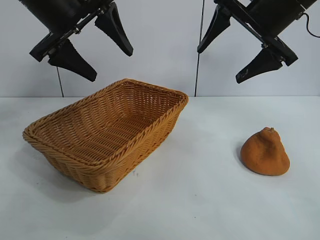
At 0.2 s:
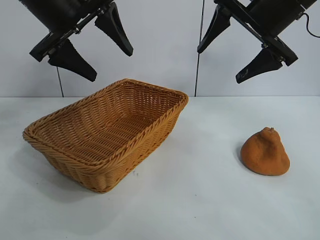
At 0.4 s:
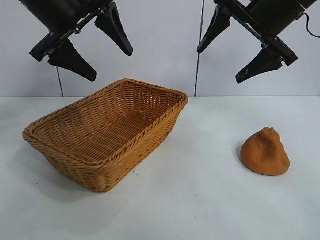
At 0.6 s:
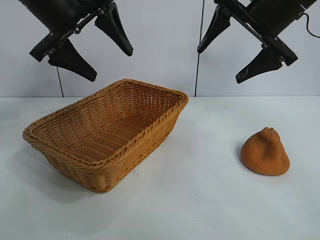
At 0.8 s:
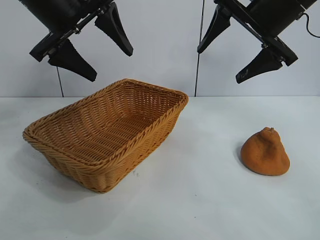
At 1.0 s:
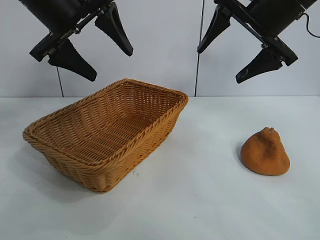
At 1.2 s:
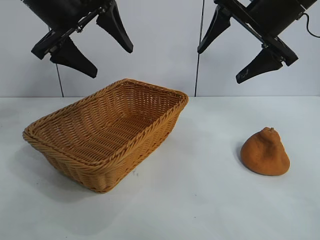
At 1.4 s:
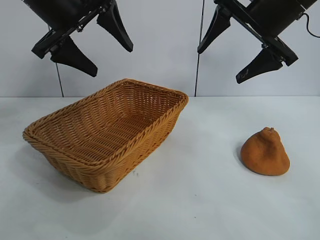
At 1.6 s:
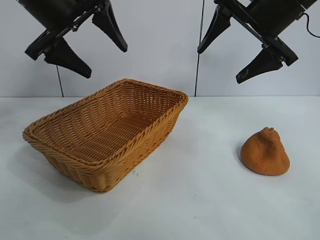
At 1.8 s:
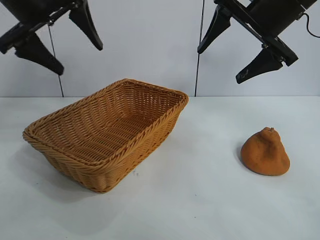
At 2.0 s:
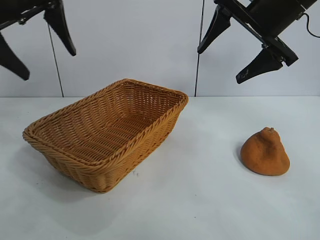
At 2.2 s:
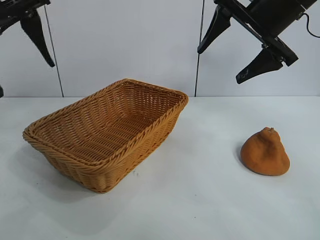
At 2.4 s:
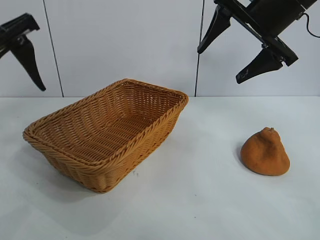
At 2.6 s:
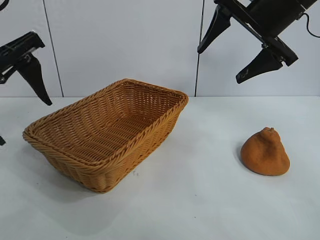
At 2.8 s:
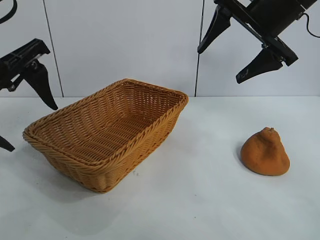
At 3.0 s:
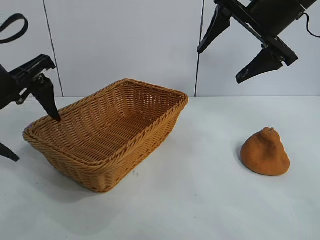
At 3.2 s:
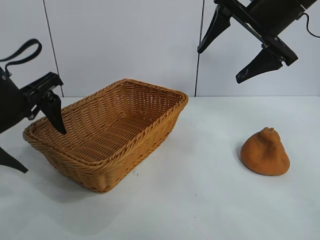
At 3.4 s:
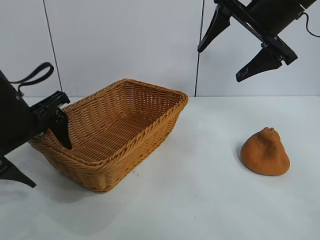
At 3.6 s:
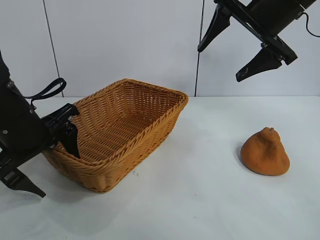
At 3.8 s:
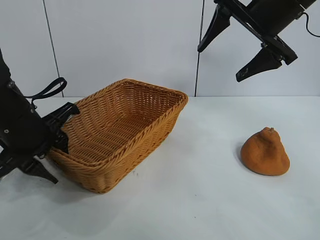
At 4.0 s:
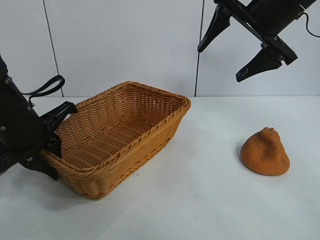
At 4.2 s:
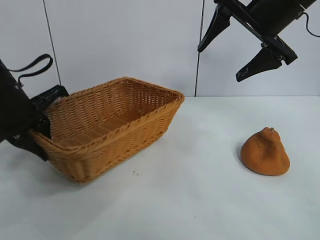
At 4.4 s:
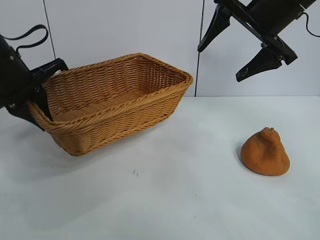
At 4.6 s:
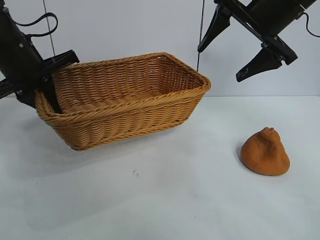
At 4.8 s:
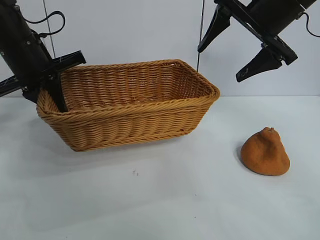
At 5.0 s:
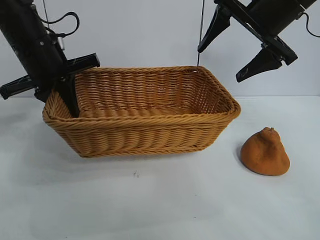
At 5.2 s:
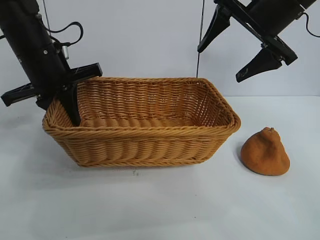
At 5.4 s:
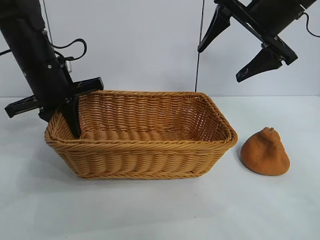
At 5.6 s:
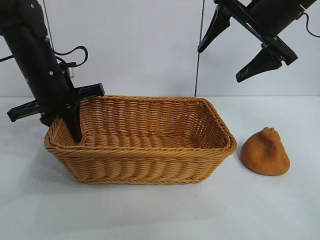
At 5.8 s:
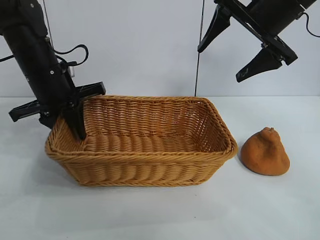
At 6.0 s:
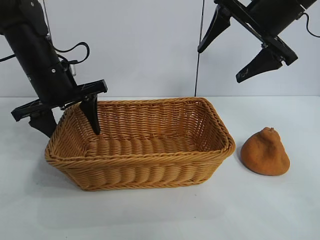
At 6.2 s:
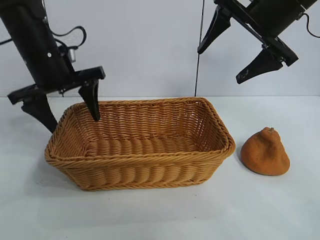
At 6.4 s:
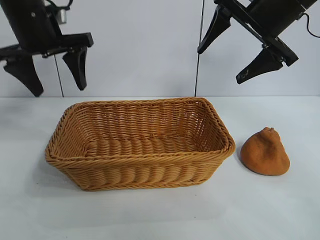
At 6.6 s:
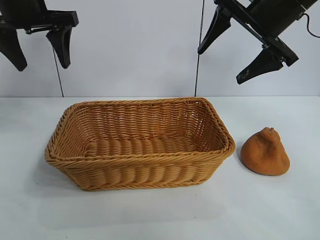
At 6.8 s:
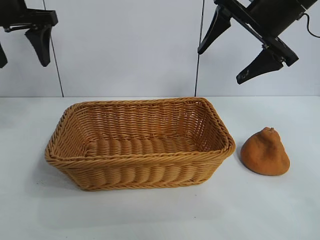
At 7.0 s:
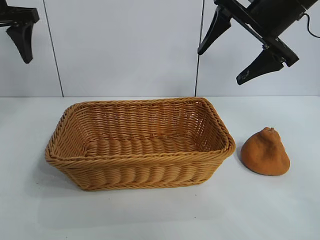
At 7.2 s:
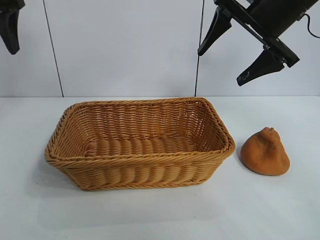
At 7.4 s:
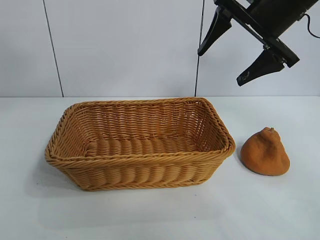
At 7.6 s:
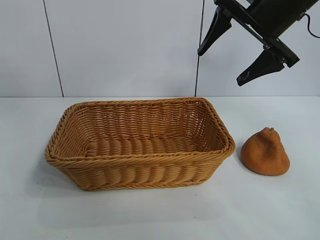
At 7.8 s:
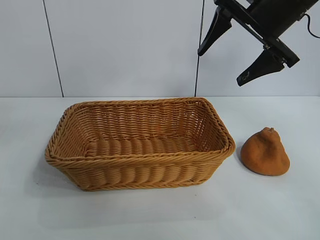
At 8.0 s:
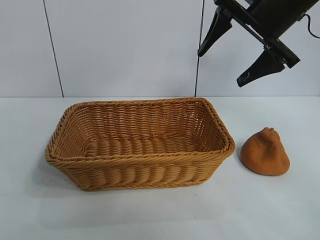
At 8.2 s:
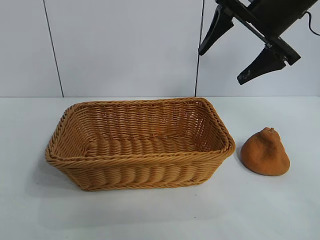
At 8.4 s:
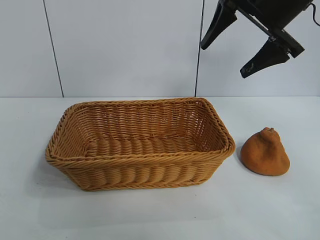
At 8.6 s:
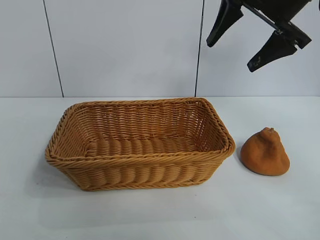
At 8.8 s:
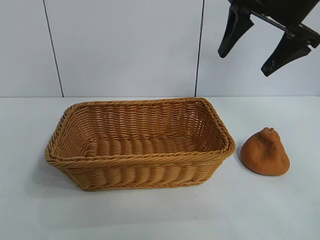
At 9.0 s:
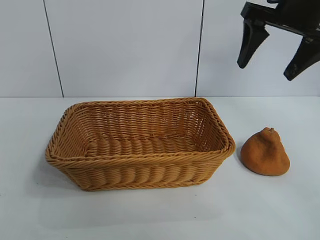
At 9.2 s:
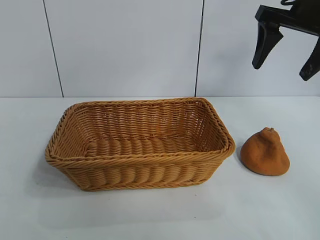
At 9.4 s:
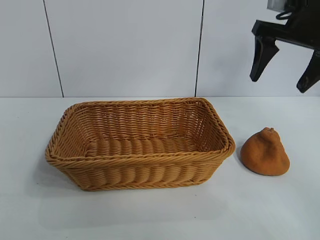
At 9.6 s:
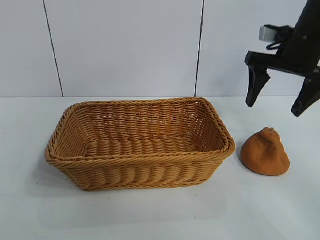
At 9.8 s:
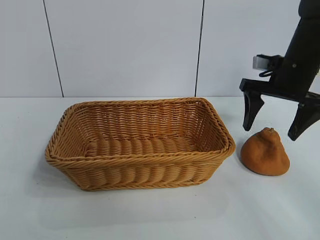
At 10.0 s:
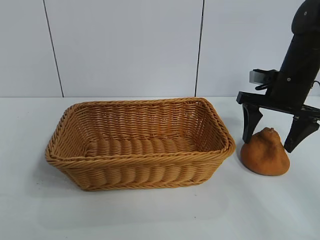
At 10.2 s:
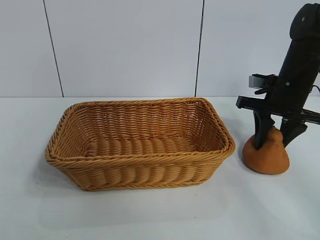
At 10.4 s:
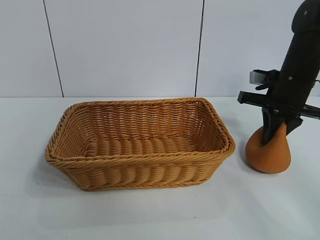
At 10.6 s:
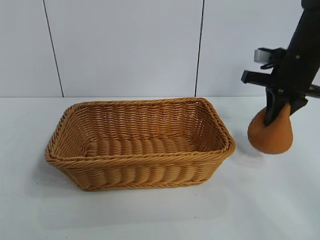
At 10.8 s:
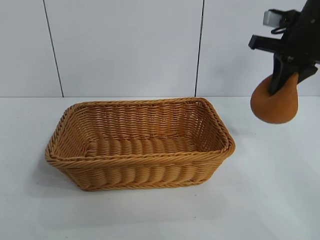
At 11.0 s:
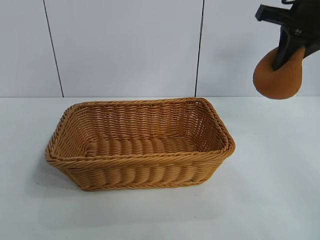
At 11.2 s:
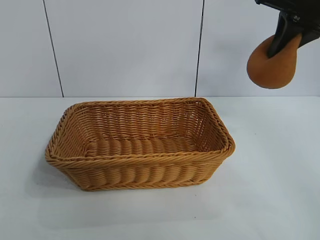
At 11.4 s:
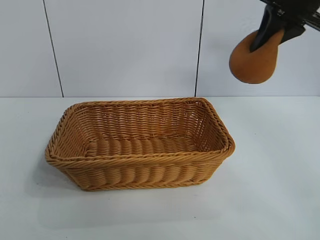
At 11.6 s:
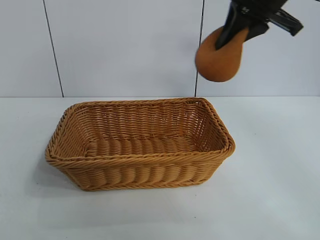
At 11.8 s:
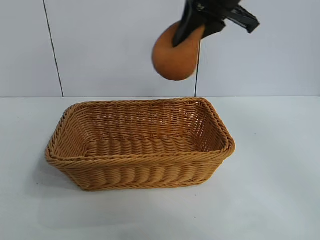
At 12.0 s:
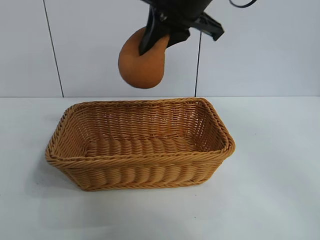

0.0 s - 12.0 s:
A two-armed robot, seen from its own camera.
Task of the whole recording: pick up the orange and put it into the basket.
Step, 0.0 s - 3.8 s: Grasp the basket with left gripper.
Step, 4.2 s - 6.0 s: Place the basket in the center of view with left gripper.
Step, 6.2 s - 10.2 s: Grasp the orange with right gripper.
